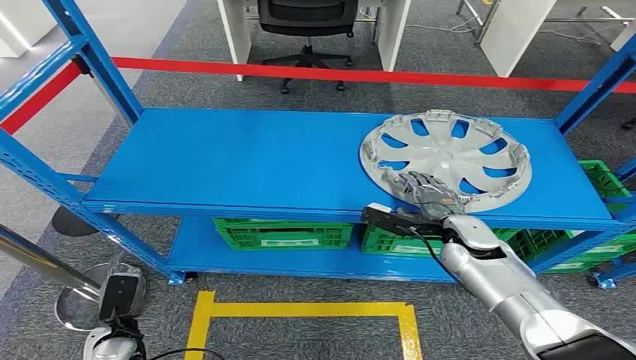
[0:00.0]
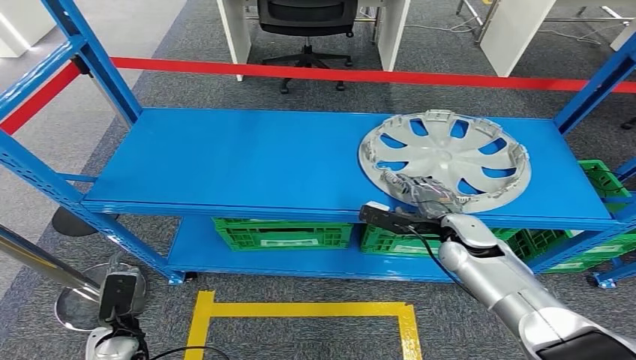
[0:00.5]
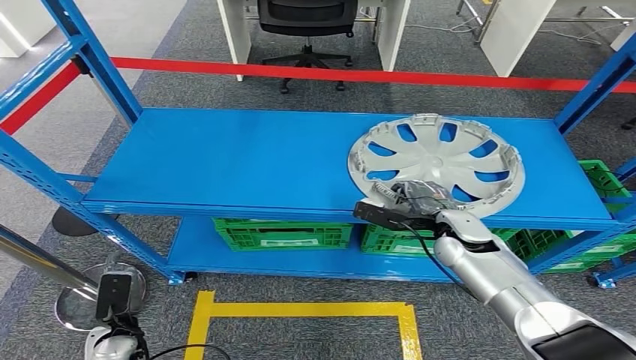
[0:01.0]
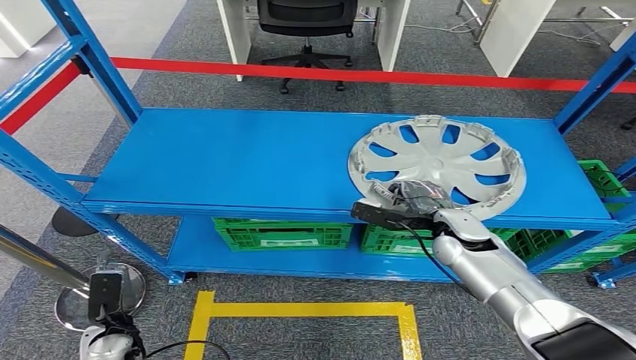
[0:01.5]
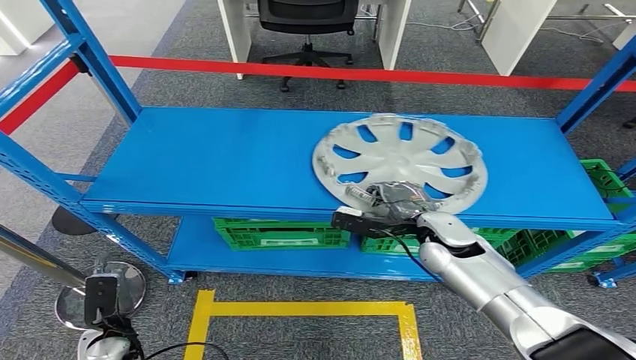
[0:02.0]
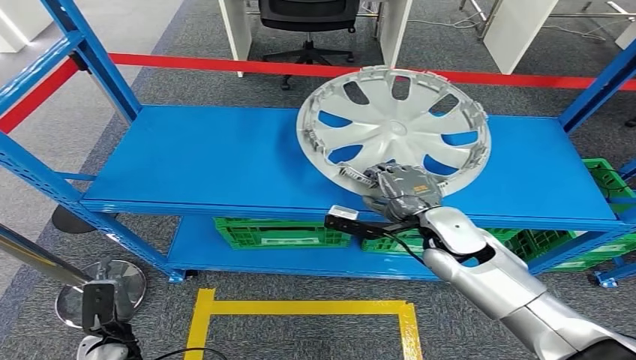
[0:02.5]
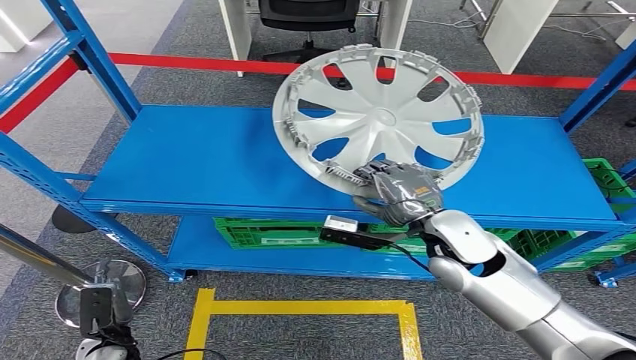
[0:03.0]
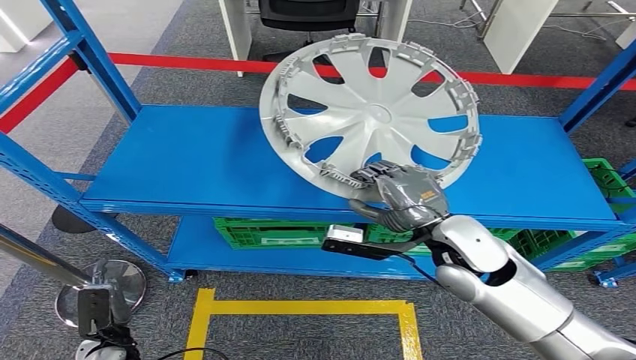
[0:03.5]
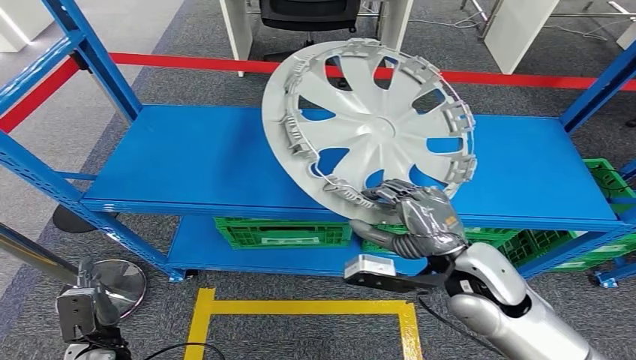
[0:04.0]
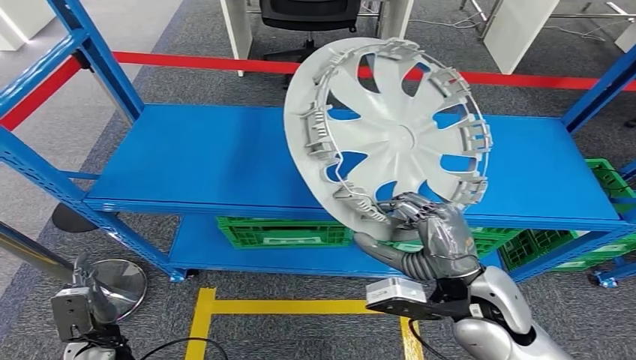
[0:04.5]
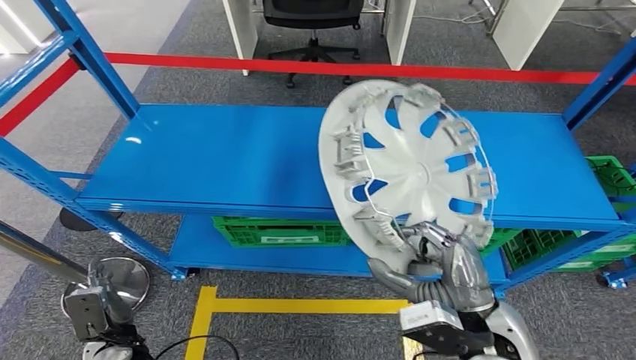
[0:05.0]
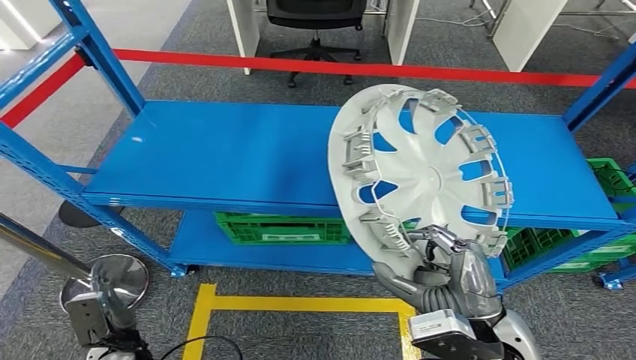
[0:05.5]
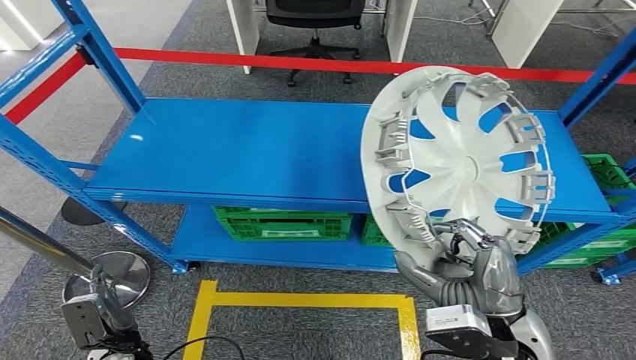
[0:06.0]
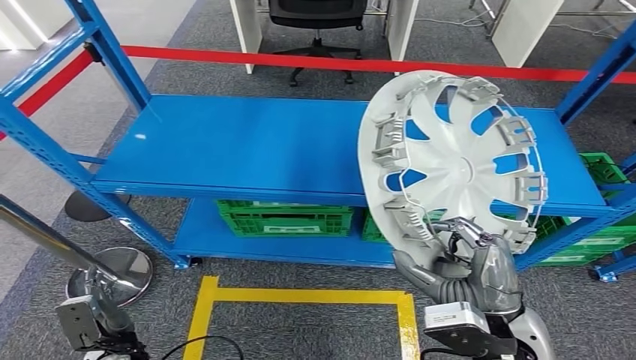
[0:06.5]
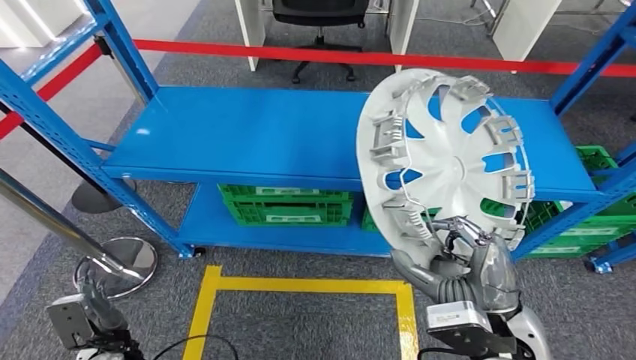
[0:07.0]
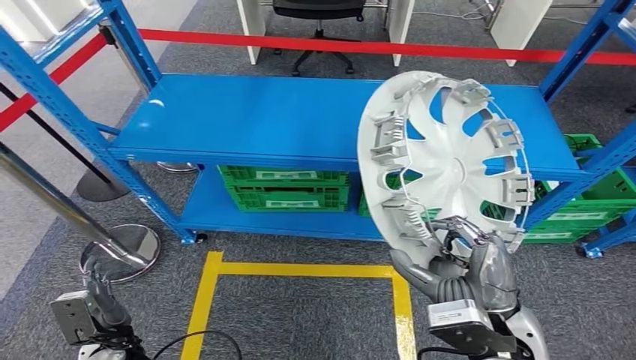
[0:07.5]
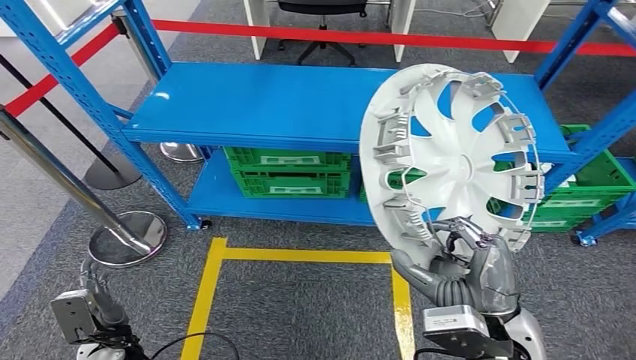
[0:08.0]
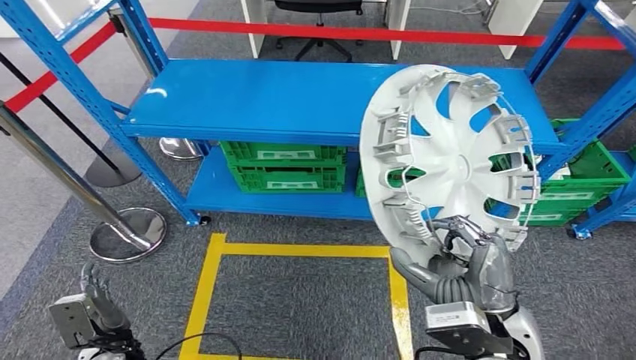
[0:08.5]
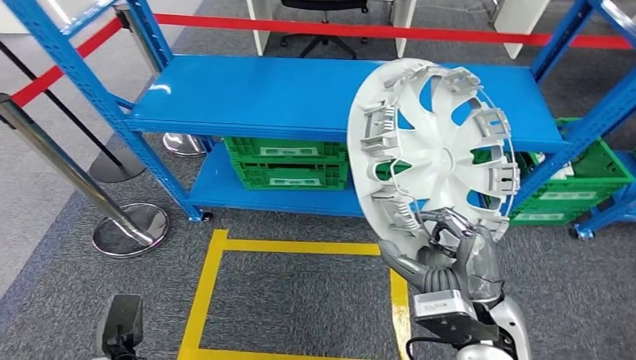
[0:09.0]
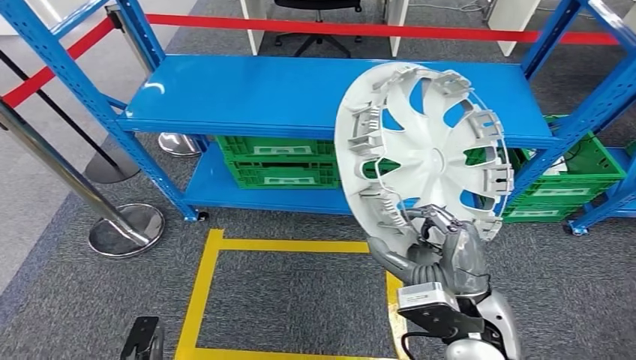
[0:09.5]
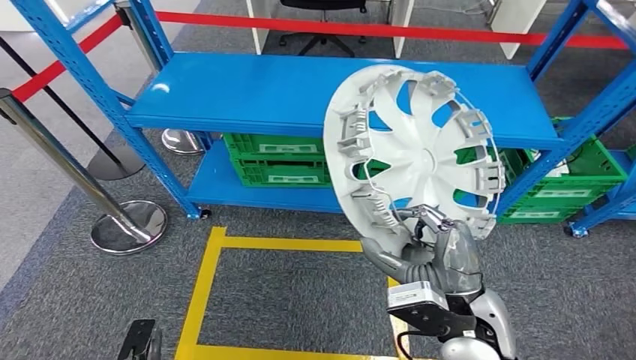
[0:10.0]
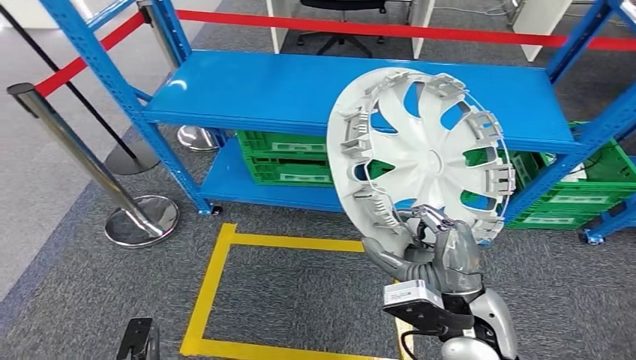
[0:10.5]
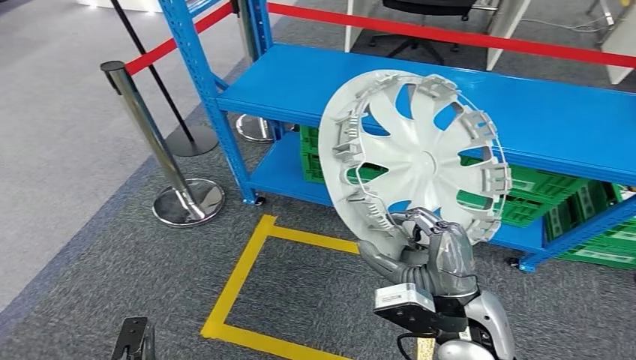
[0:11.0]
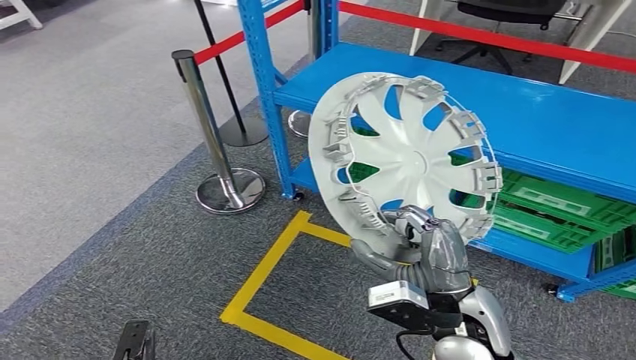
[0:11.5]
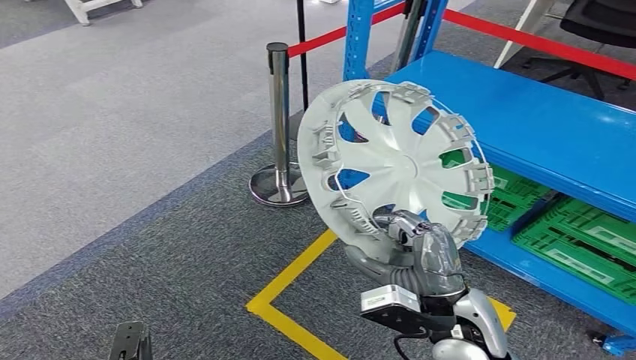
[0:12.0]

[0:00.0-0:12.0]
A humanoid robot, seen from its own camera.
Step, 0:00.0 to 0:03.5: Pick up the small component from the shelf.

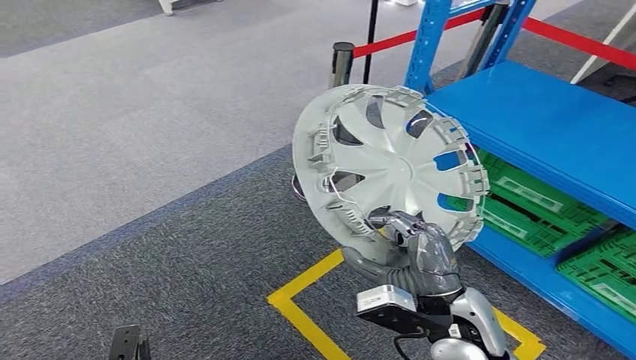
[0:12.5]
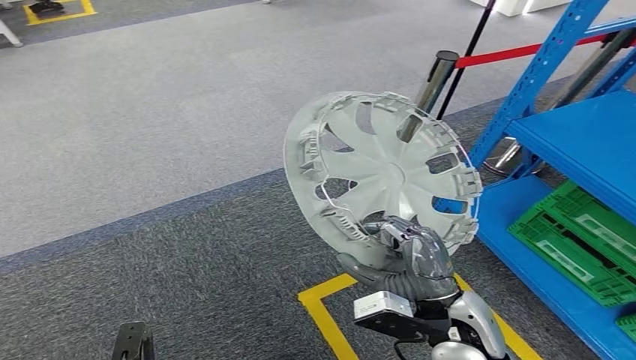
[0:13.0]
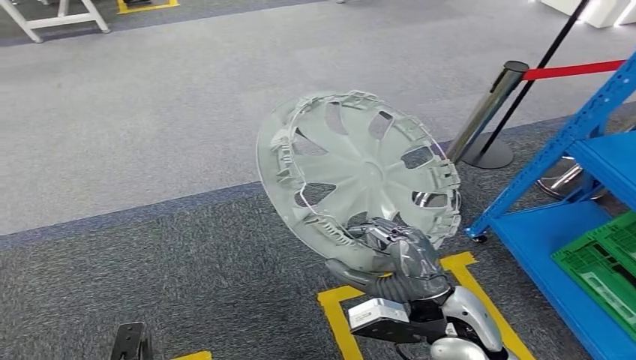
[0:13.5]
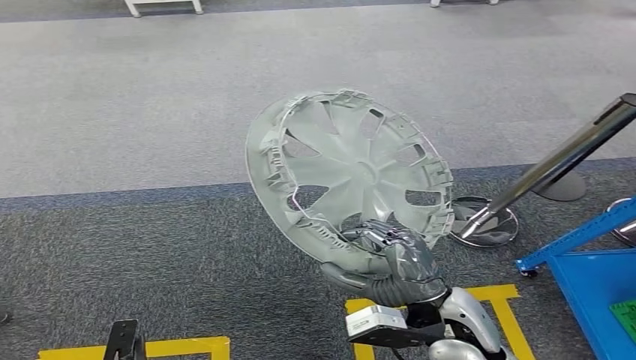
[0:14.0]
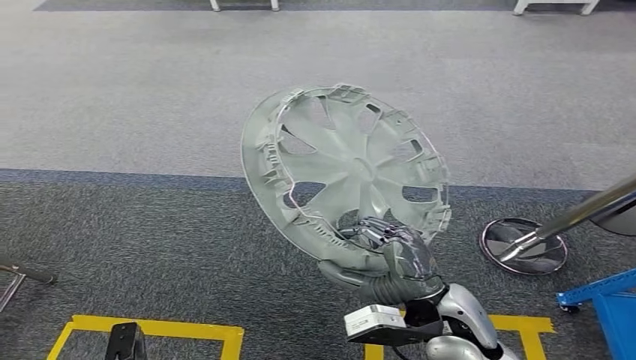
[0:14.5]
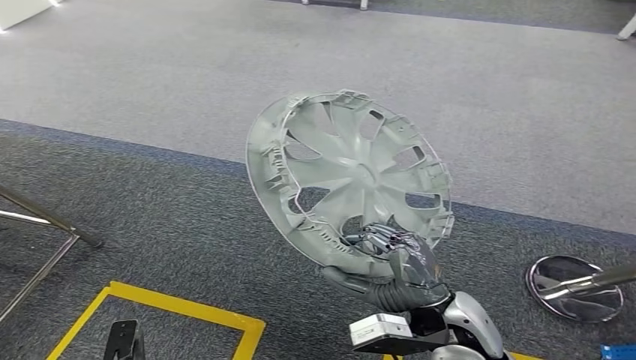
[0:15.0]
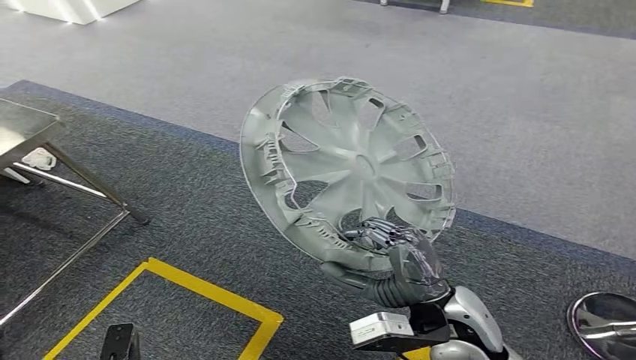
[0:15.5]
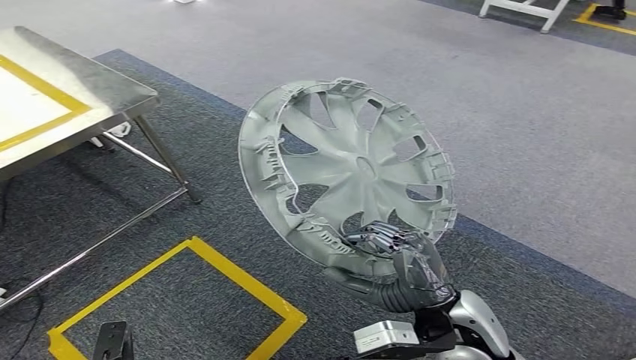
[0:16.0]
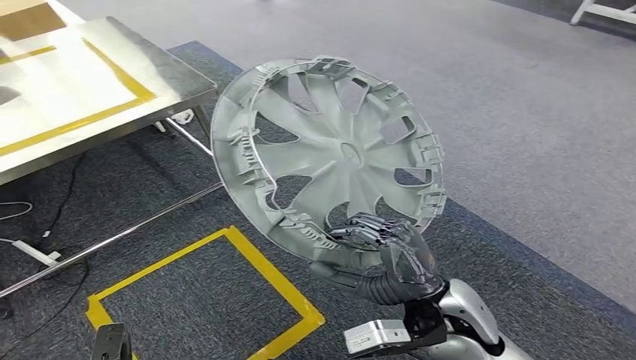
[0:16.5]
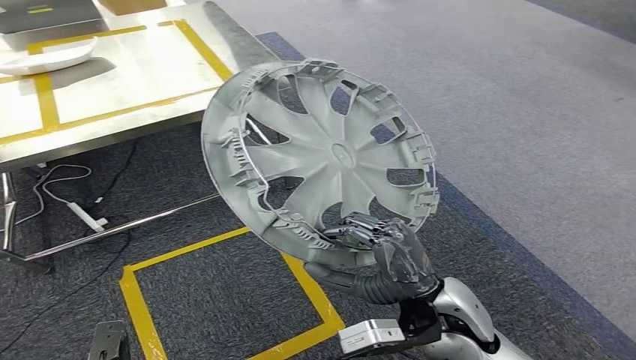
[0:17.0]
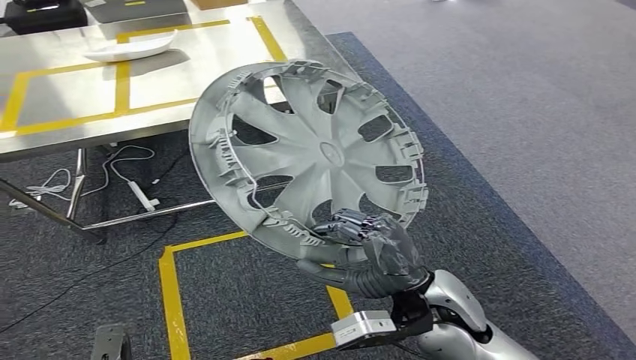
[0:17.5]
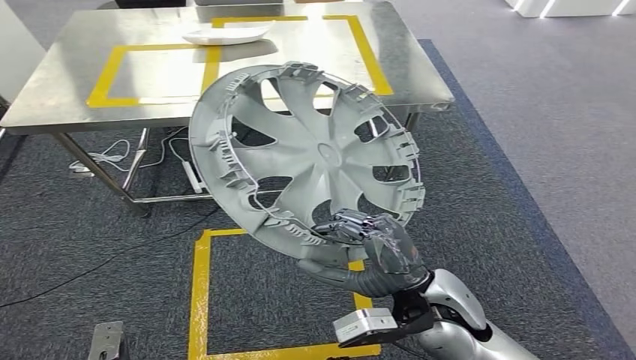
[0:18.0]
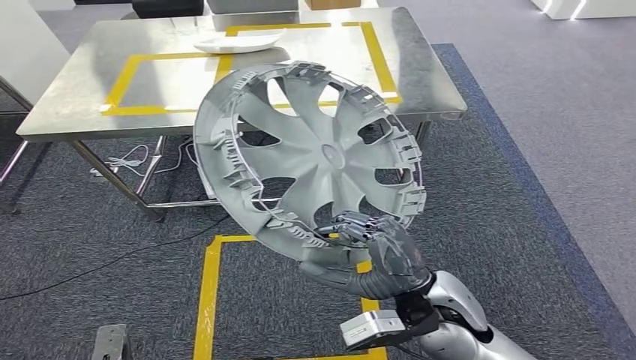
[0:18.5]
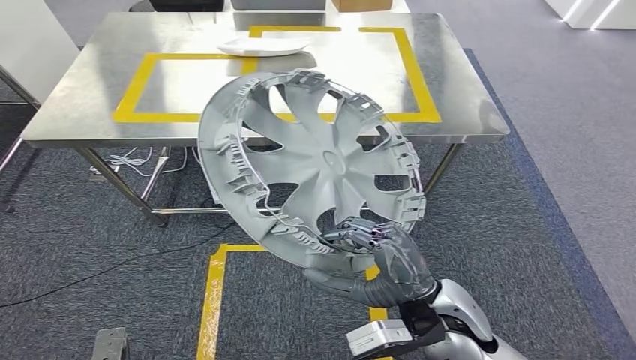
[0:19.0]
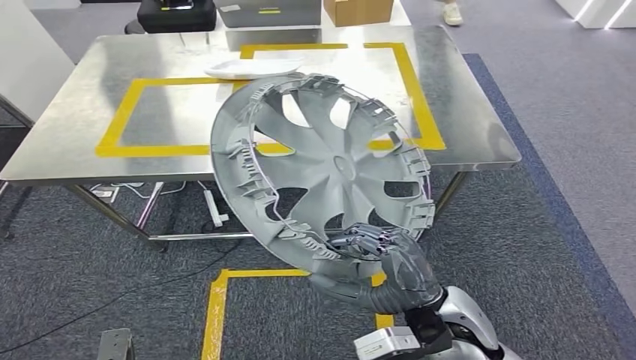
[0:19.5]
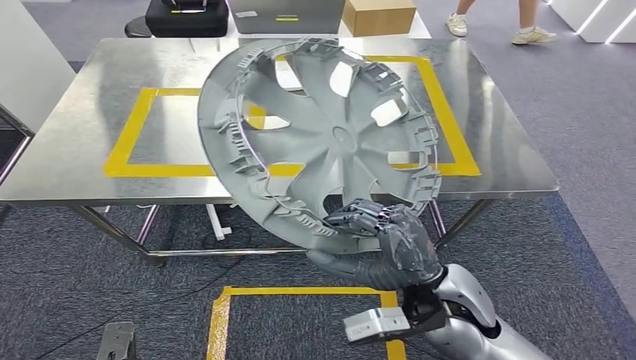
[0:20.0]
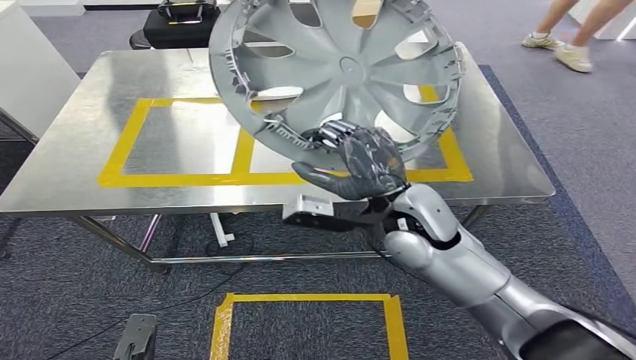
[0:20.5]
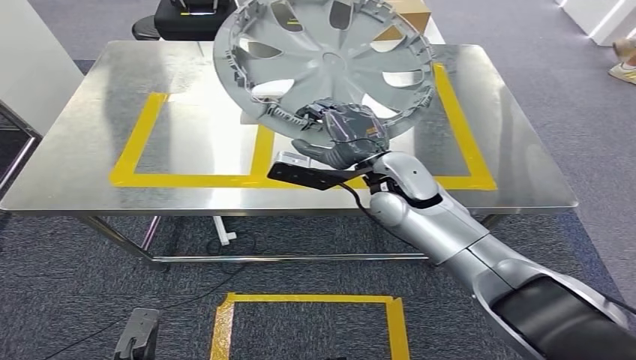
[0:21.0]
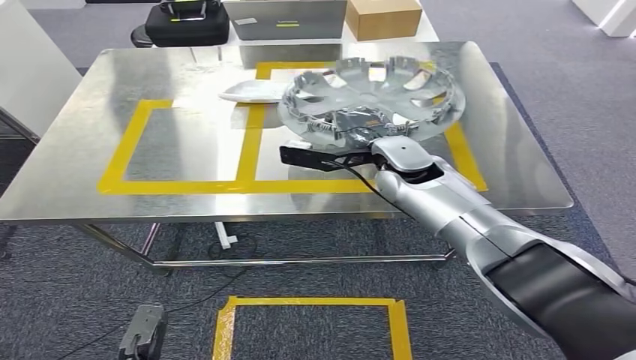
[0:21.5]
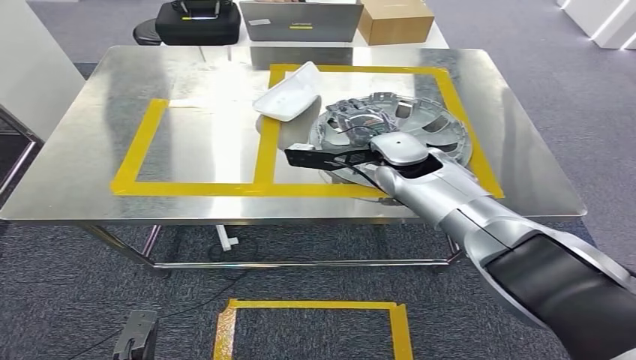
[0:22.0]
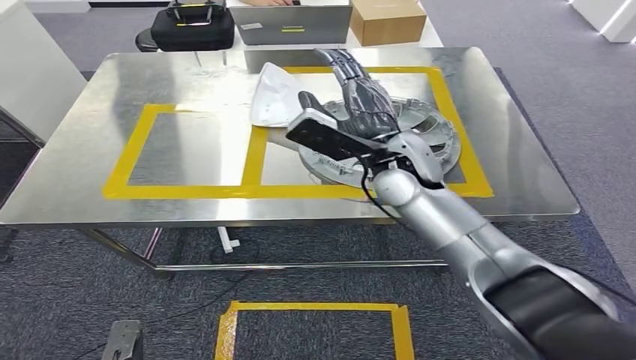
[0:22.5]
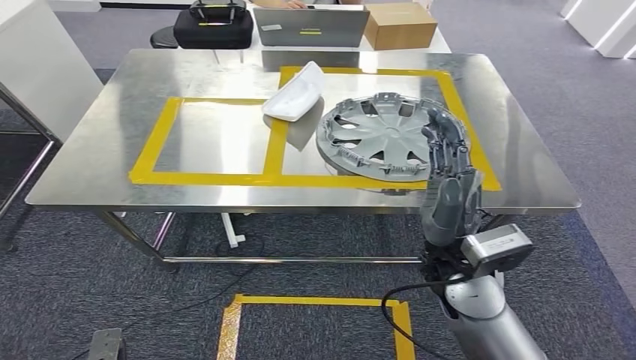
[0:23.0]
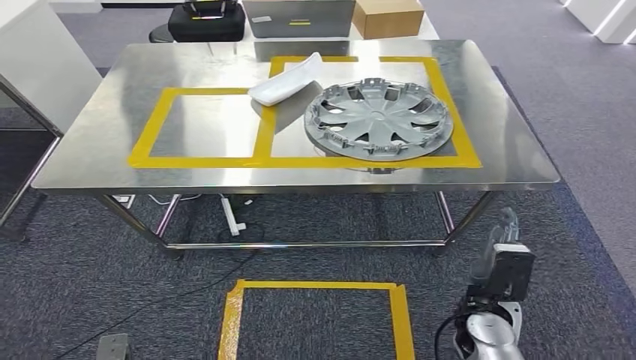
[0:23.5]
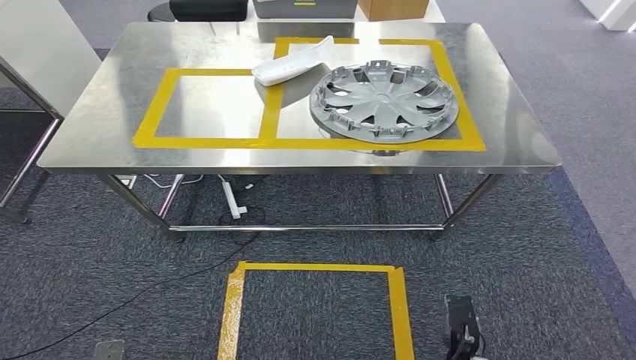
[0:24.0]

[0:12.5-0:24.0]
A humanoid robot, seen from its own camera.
Step, 0:12.5 to 0:20.5: Move the small component to the workbench.
